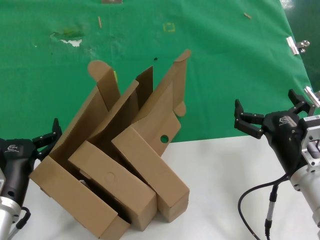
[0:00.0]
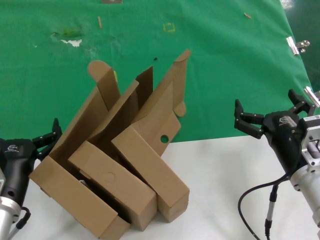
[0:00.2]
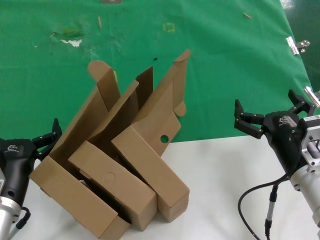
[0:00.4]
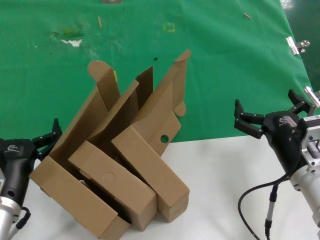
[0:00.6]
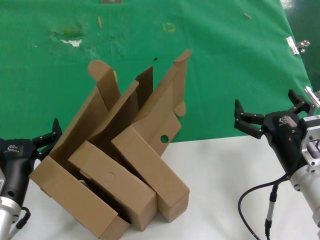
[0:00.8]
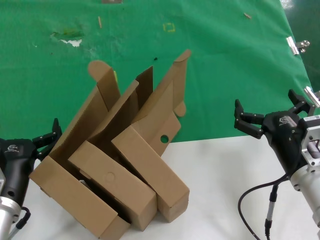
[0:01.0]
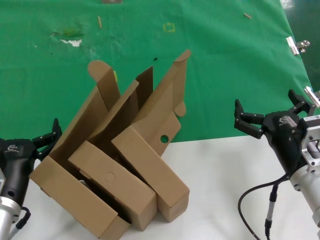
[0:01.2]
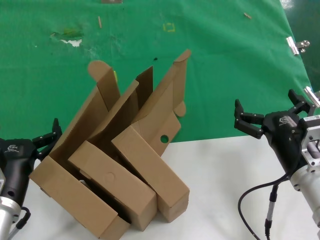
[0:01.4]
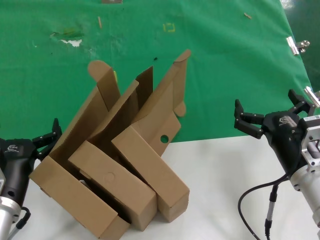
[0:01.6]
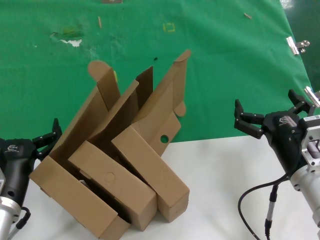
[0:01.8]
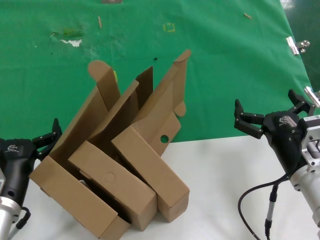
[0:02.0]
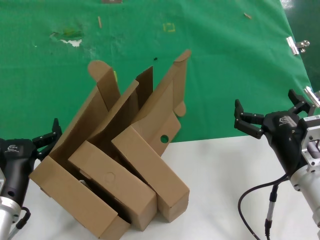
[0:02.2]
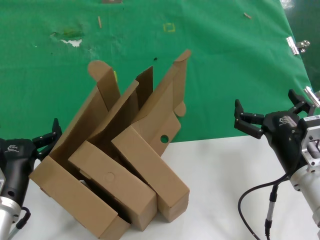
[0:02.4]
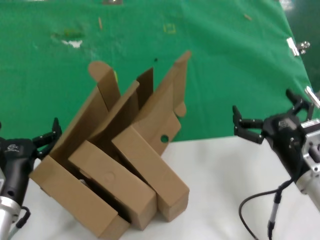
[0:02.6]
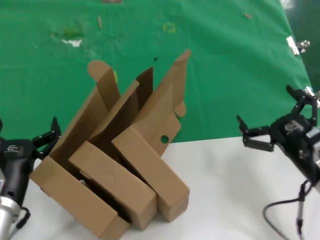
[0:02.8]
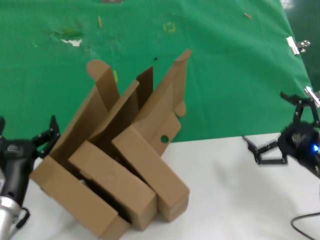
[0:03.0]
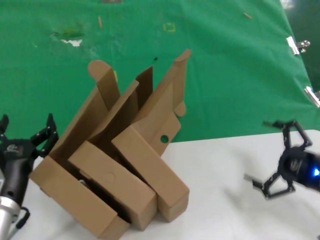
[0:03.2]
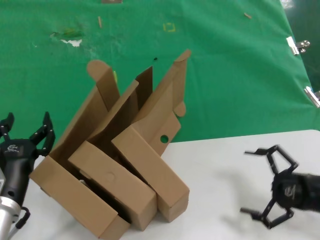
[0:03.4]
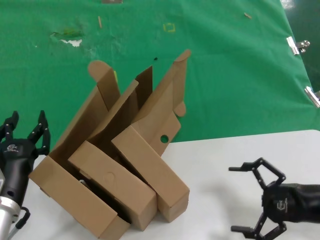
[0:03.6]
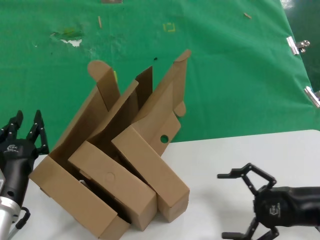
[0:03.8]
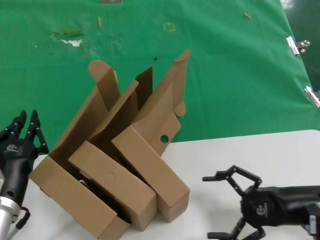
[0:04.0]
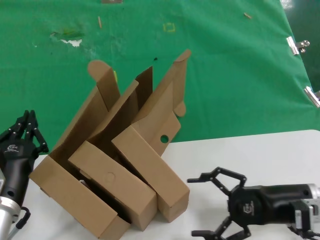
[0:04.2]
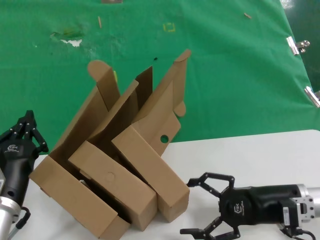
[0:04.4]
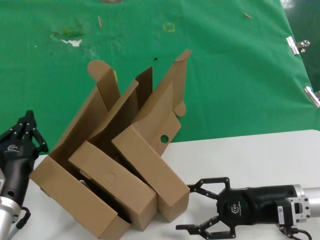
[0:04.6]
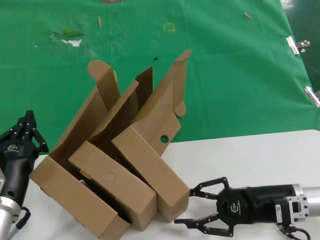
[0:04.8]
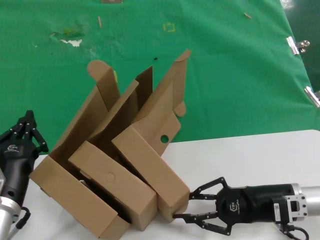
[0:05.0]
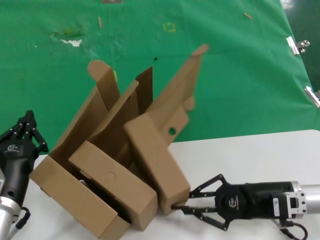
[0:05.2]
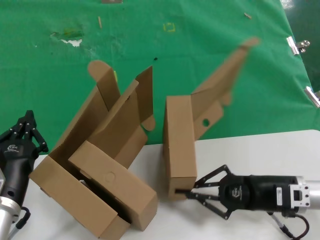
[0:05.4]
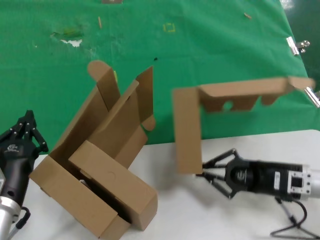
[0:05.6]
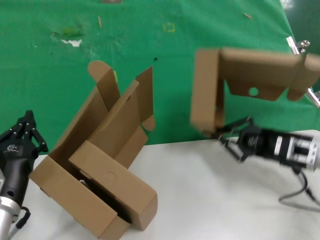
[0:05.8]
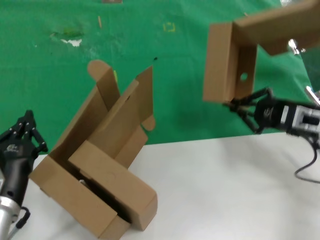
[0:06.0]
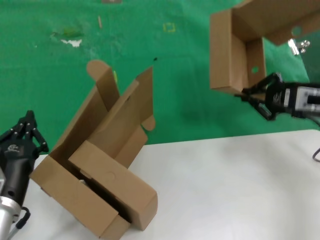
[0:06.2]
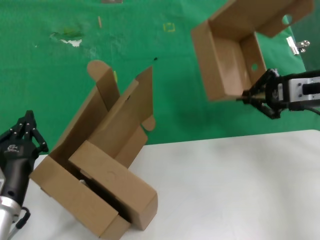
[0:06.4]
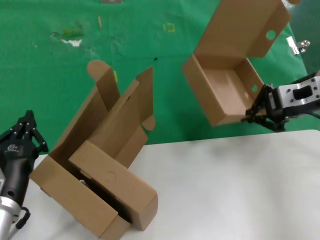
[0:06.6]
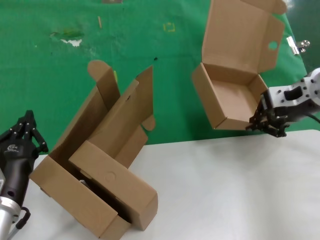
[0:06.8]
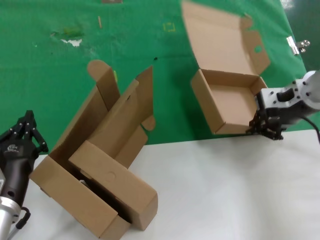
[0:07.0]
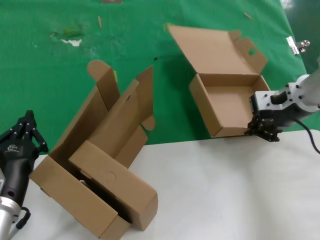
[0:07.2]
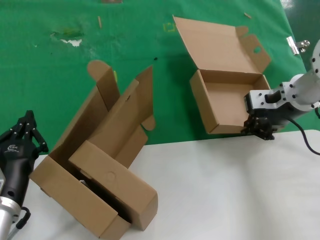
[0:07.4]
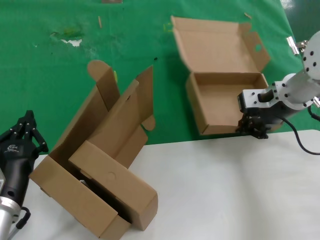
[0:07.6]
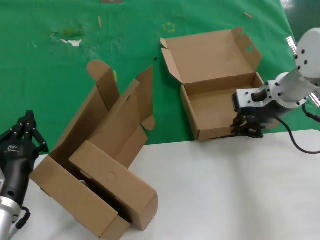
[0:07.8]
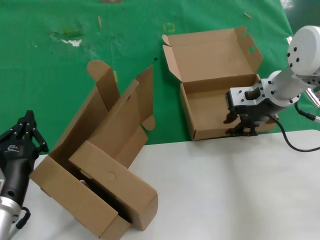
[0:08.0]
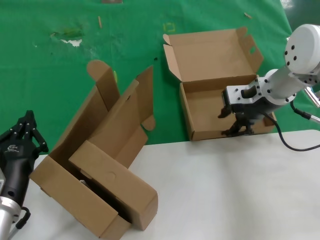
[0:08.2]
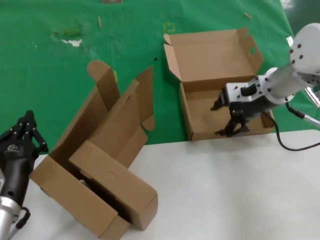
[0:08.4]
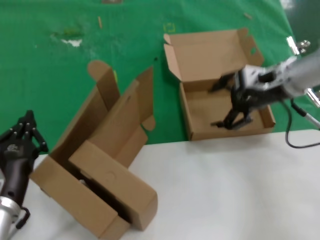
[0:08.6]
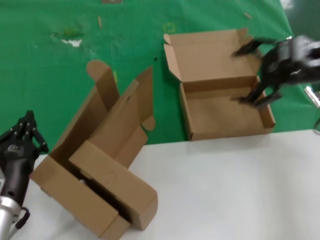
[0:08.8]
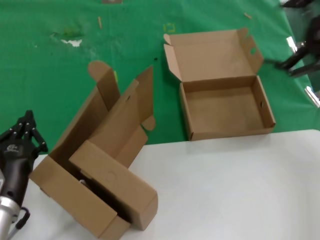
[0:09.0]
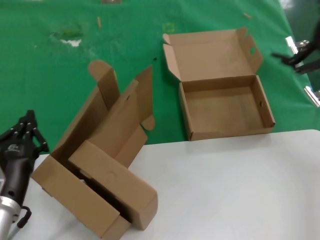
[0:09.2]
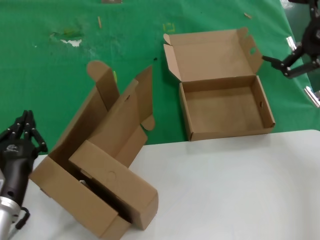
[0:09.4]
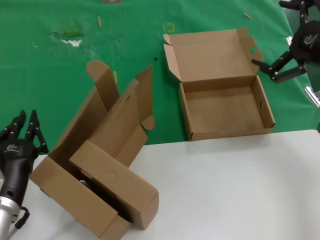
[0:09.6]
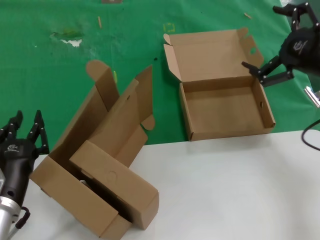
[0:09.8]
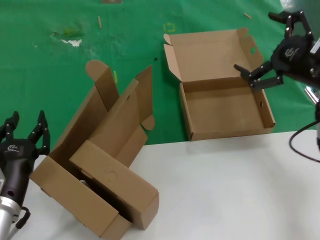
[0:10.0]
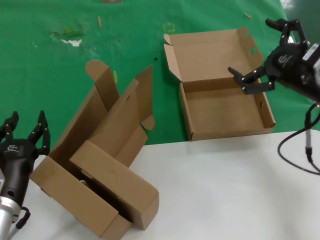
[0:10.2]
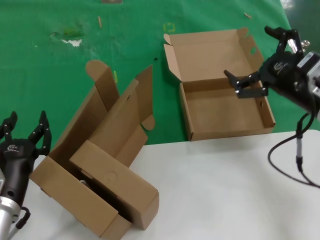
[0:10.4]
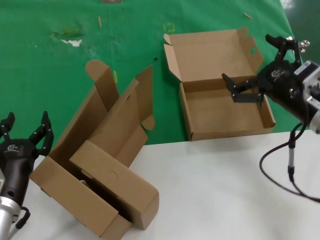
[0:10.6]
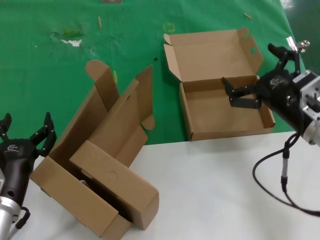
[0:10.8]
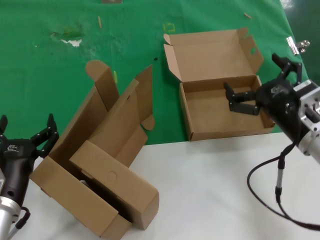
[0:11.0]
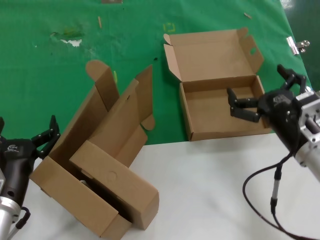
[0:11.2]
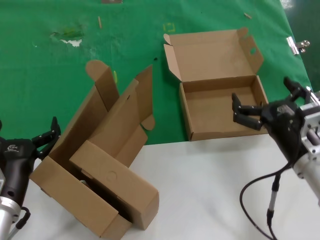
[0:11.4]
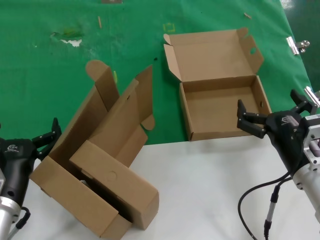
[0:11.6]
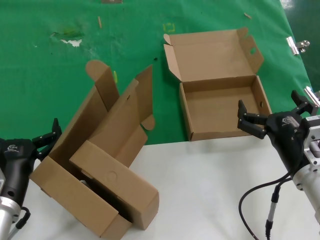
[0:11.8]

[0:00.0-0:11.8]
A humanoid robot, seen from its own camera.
Task of the whole recording: pick up the paper box and put it at the back.
Step, 0:00.0 to 0:05.2: Grasp the paper box.
Step, 0:05.4 to 0:08.2: Place the paper box on the table.
0:00.0 to 0:01.4: Both hands stay put.
0:01.4 to 0:03.0: The right hand is displaced to the right by about 10 cm.
0:03.0 to 0:04.4: The right hand shifts about 10 cm downward and forward, and travels to the right and back again, approximately 5 cm each way.
0:04.4 to 0:06.0: The right hand moves upward and forward, about 10 cm.
0:06.0 to 0:07.4: The right hand travels upward, to the left and forward by some 15 cm.
0:07.4 to 0:08.8: The right hand shifts about 5 cm upward.
0:08.8 to 0:10.4: The right hand heads downward and backward, covering approximately 10 cm.
0:10.4 to 0:11.8: The right hand heads downward, backward and to the left, covering some 15 cm.

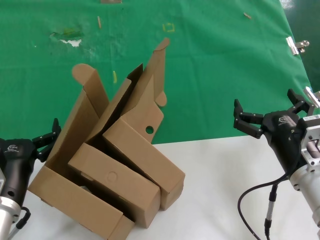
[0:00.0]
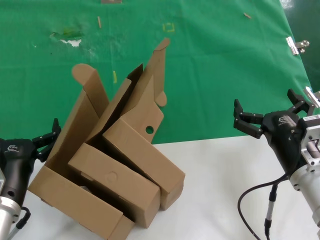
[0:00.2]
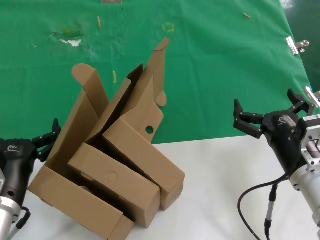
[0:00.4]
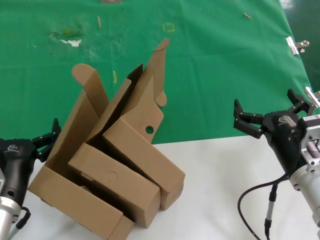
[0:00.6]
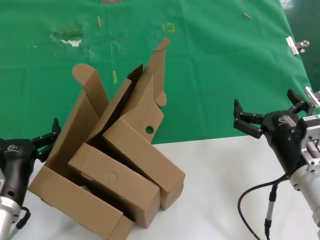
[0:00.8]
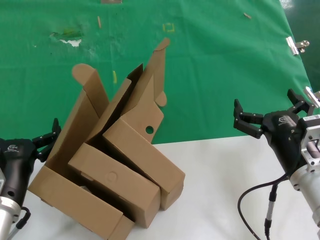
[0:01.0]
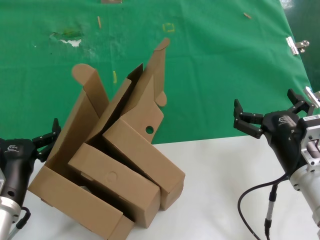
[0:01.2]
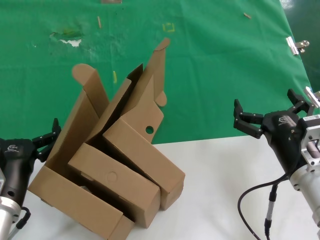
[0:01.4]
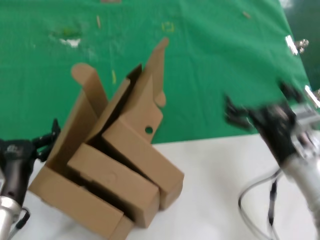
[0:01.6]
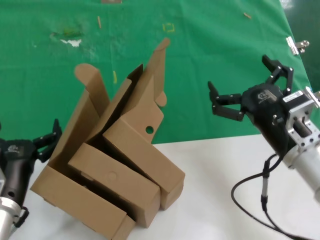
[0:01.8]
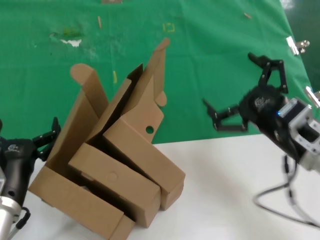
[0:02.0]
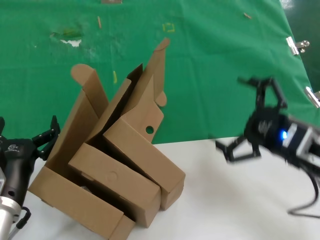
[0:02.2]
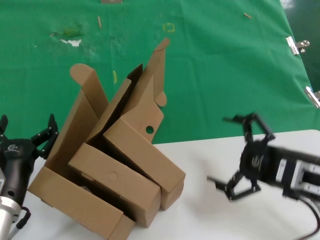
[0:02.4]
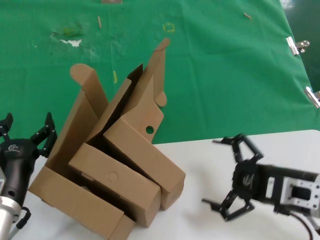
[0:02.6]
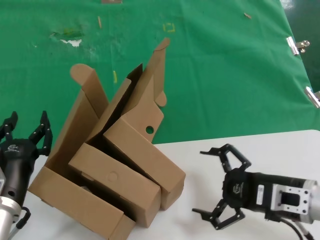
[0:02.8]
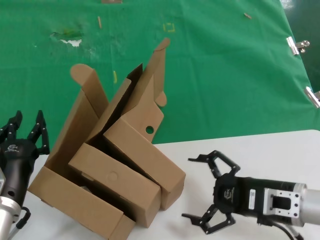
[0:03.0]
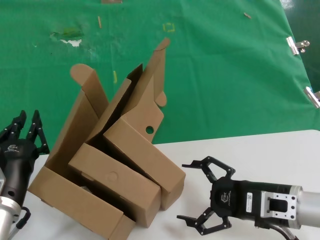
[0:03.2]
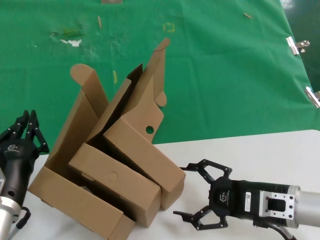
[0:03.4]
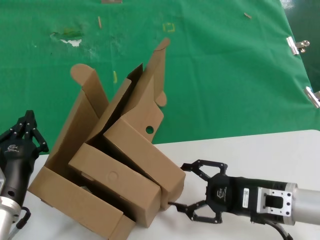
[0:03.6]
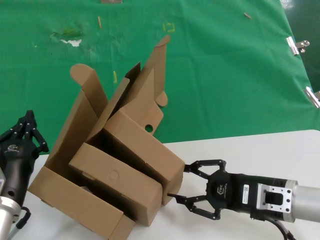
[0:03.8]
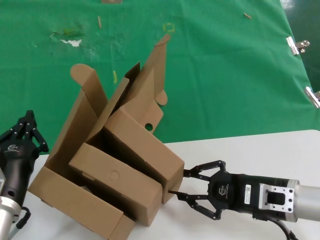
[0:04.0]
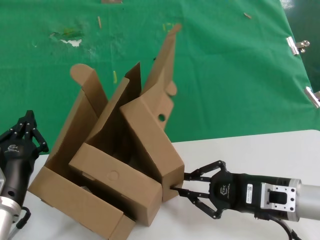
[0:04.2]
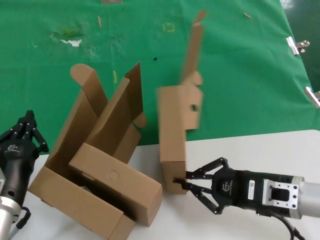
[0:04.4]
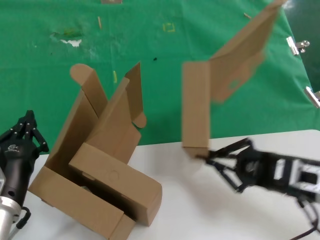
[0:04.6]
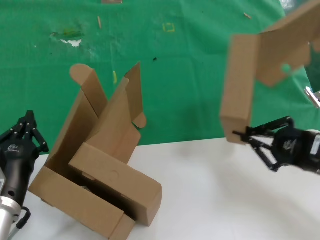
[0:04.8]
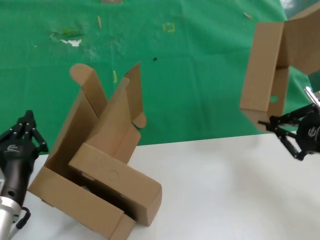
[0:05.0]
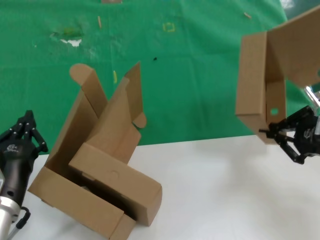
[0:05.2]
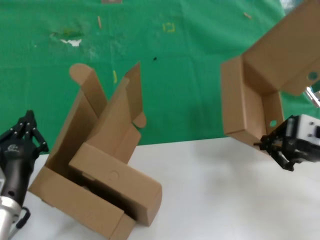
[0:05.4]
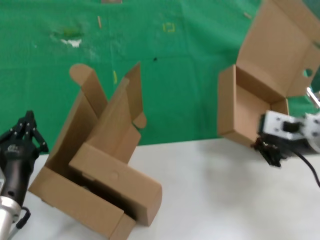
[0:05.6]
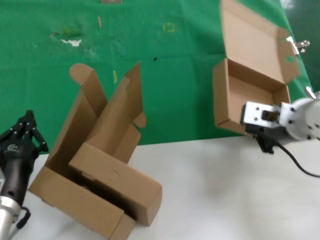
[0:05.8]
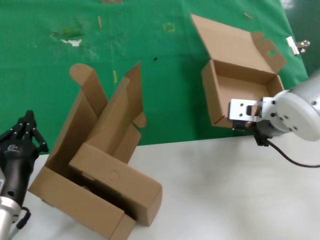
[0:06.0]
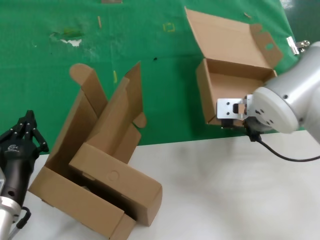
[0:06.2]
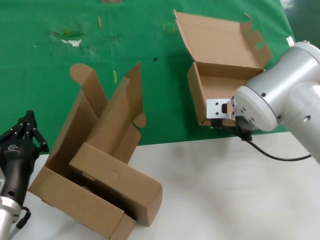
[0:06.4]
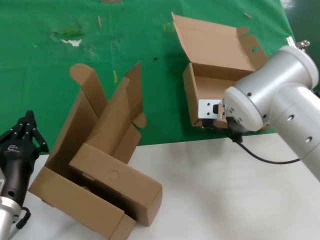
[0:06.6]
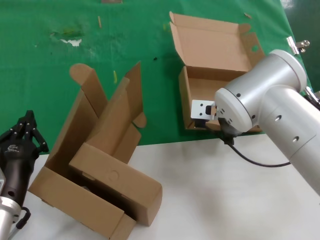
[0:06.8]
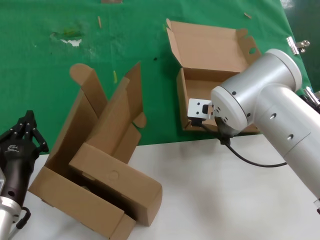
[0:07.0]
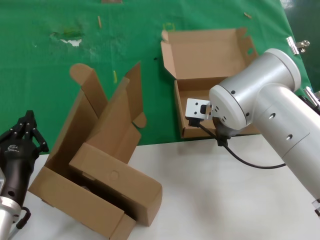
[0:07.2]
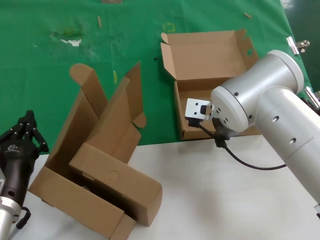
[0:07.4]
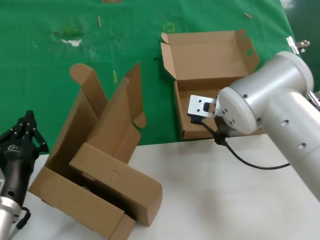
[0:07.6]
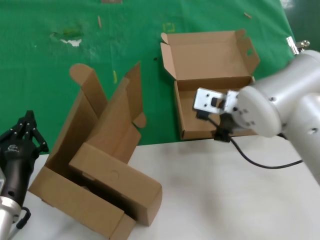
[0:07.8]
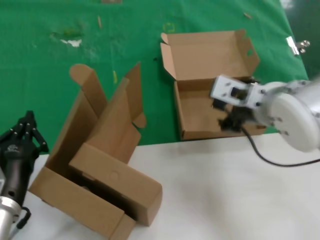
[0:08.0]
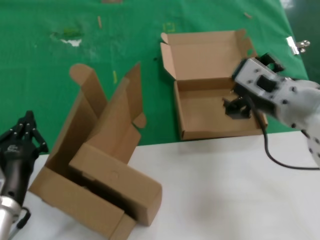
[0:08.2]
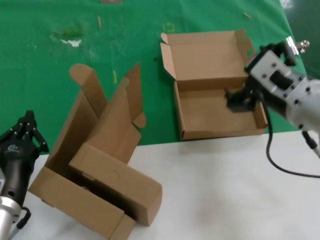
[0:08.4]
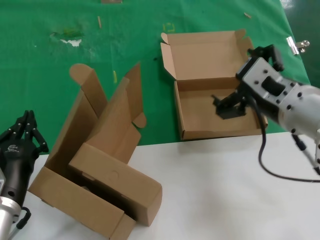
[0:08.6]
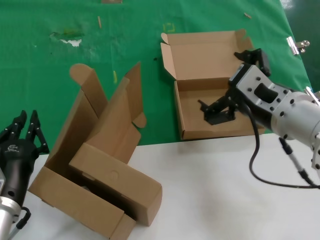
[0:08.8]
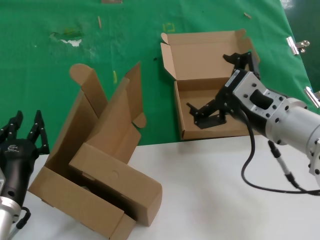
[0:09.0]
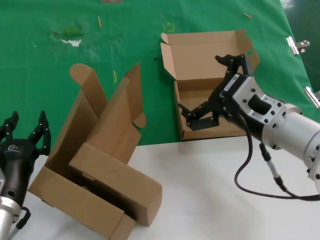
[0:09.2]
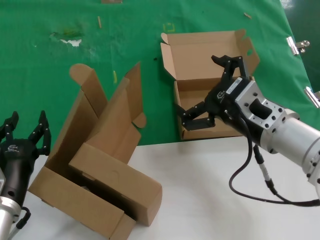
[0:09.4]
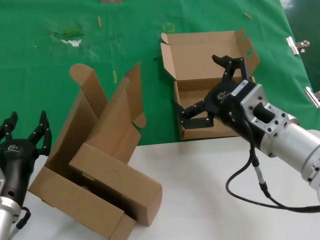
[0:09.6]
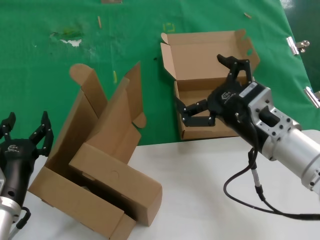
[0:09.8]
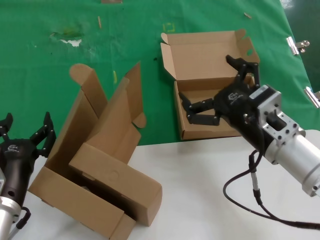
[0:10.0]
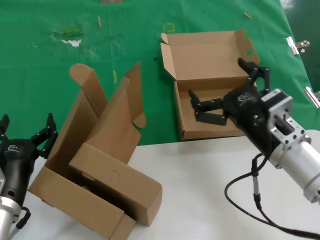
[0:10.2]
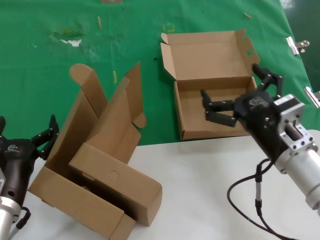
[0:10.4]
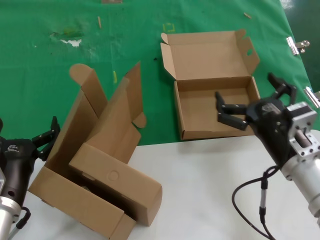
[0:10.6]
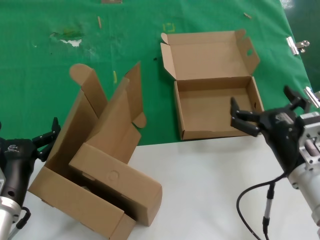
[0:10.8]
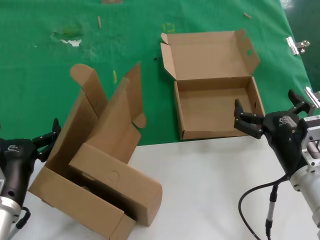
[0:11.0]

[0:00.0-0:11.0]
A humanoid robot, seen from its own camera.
Task of the whole recording: pick up the paper box and put it at the back.
Step, 0:00.0 to 0:04.4: Grasp the paper box.
Step, 0:04.6 to 0:07.4: Place the paper box on the table.
0:00.0 to 0:01.6: Neither hand changes place.
0:01.6 to 0:03.2: The right hand reaches roughly 5 cm upward, then returns.
0:03.2 to 0:04.8: The right hand goes approximately 10 cm to the right and upward.
0:04.8 to 0:06.2: The right hand shifts some 20 cm to the left, forward and upward.
0:07.8 to 0:09.4: The right hand moves backward and to the right, roughly 10 cm.
0:09.4 to 0:11.0: The right hand is displaced downward by approximately 10 cm.
